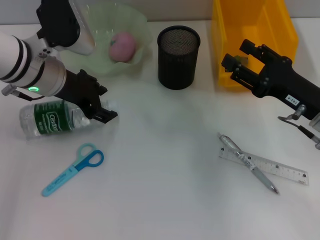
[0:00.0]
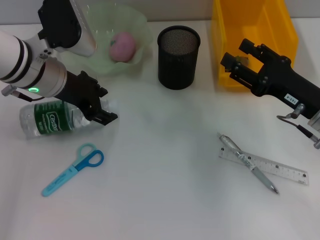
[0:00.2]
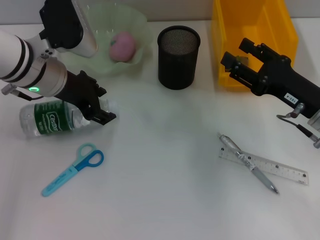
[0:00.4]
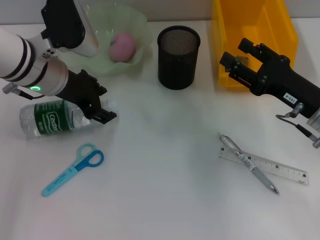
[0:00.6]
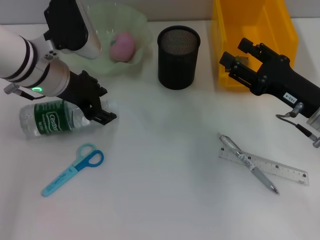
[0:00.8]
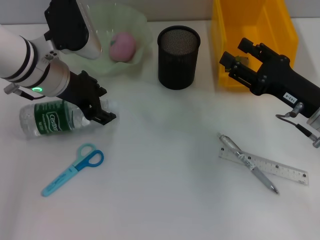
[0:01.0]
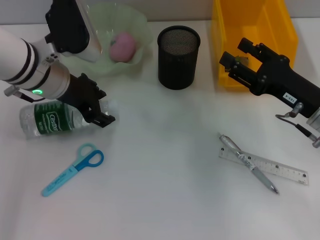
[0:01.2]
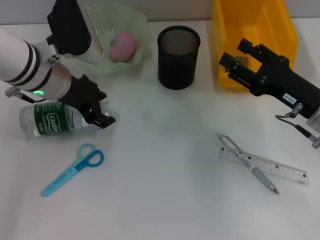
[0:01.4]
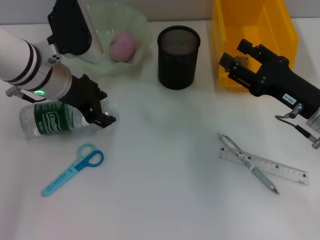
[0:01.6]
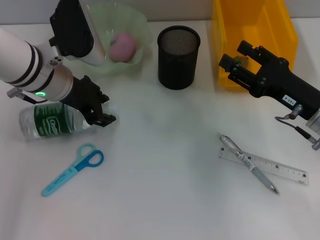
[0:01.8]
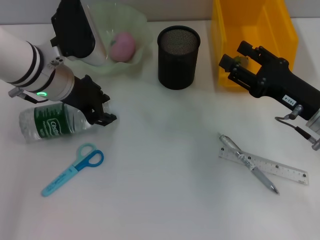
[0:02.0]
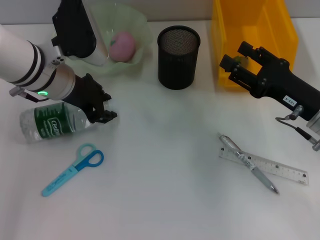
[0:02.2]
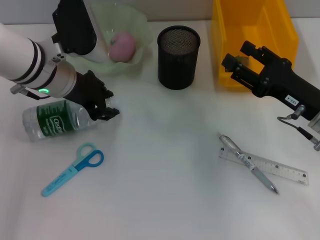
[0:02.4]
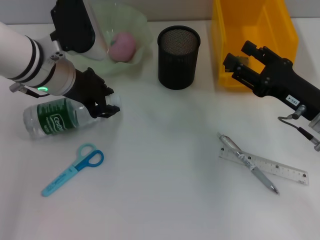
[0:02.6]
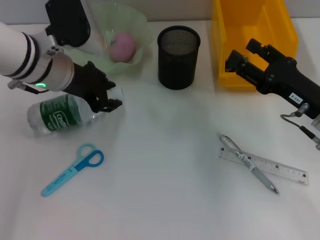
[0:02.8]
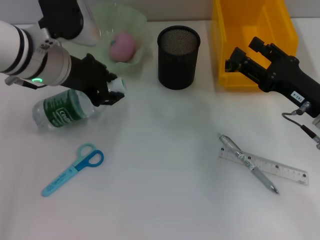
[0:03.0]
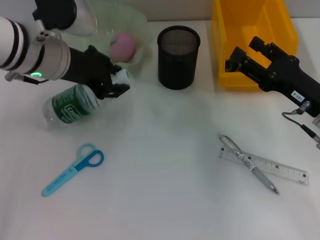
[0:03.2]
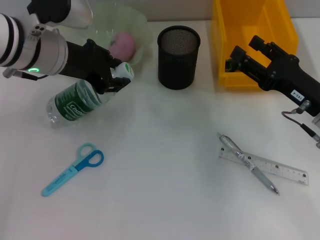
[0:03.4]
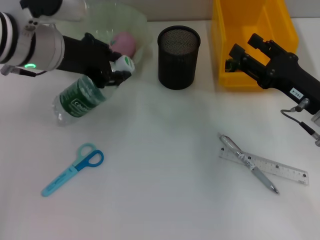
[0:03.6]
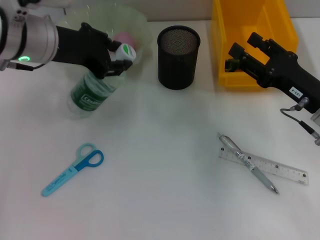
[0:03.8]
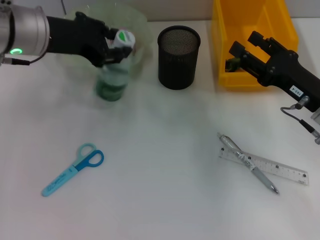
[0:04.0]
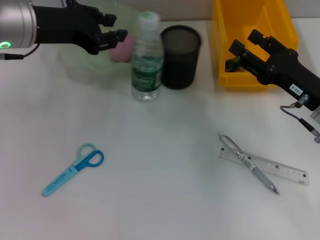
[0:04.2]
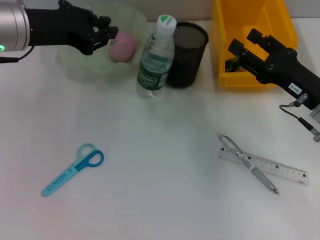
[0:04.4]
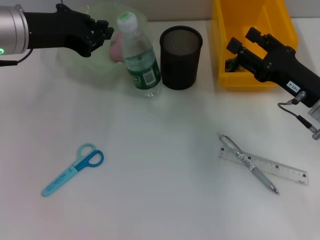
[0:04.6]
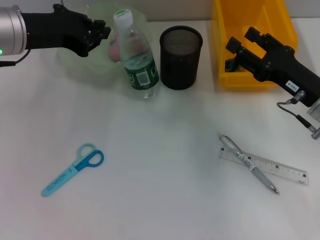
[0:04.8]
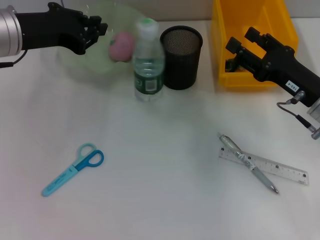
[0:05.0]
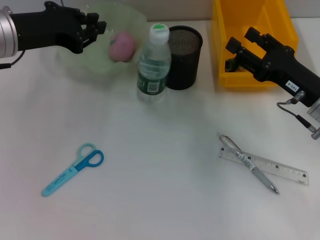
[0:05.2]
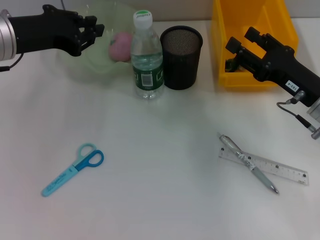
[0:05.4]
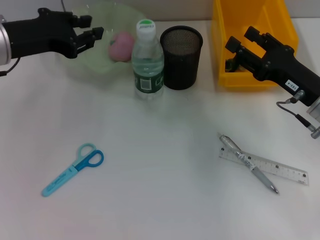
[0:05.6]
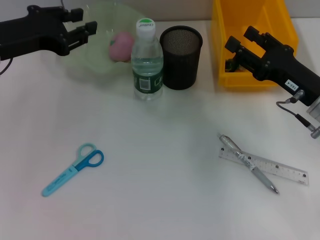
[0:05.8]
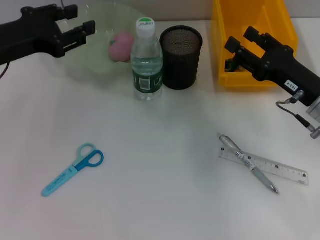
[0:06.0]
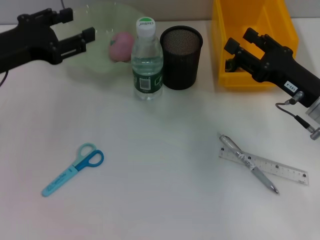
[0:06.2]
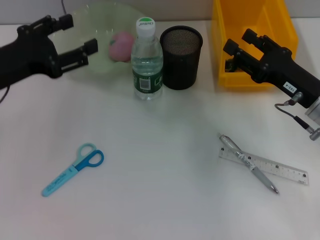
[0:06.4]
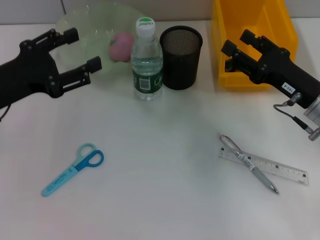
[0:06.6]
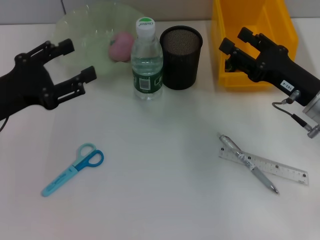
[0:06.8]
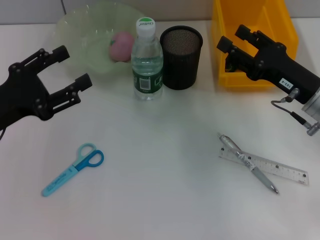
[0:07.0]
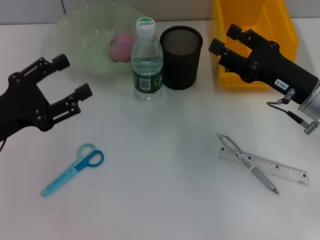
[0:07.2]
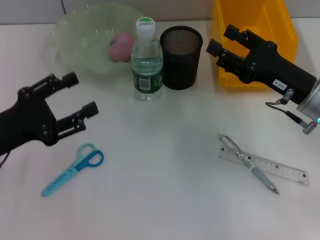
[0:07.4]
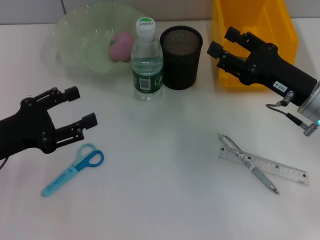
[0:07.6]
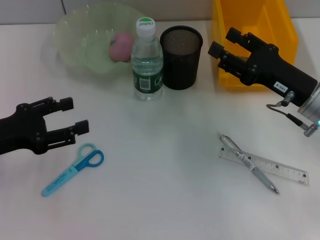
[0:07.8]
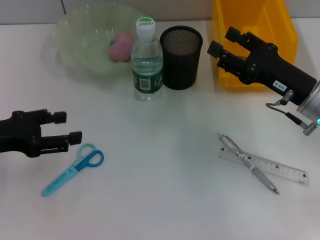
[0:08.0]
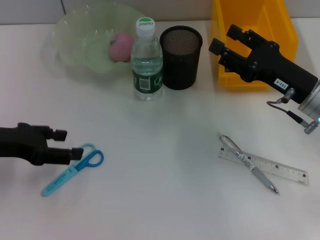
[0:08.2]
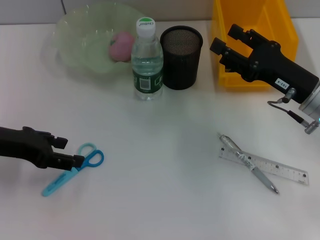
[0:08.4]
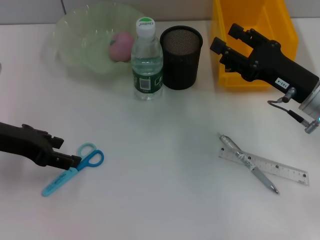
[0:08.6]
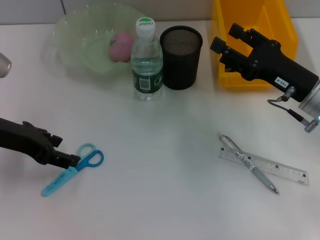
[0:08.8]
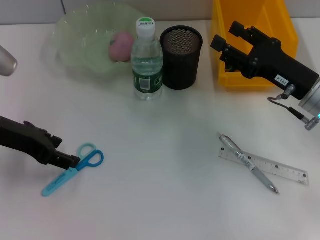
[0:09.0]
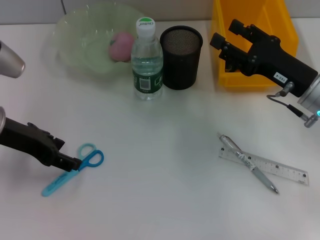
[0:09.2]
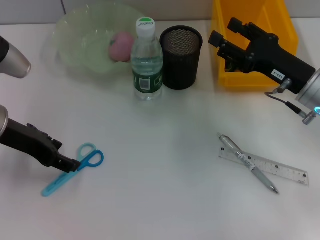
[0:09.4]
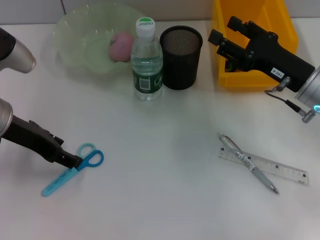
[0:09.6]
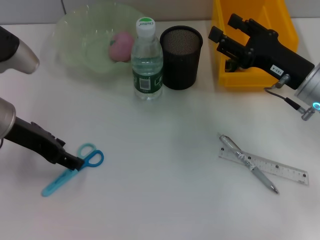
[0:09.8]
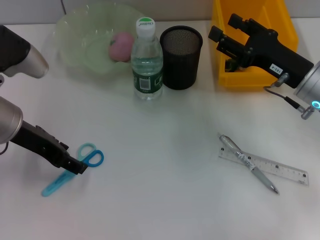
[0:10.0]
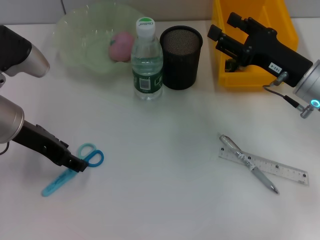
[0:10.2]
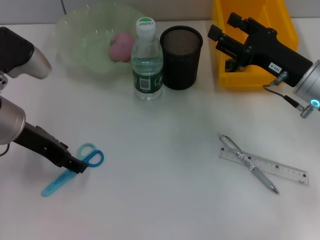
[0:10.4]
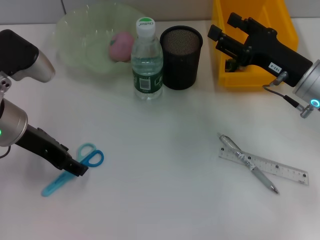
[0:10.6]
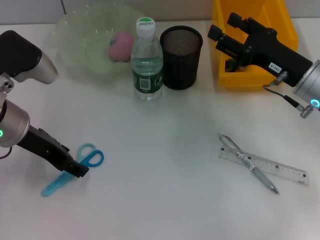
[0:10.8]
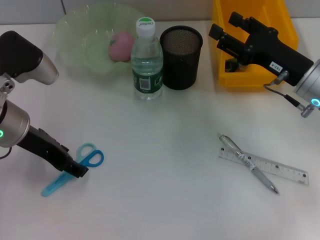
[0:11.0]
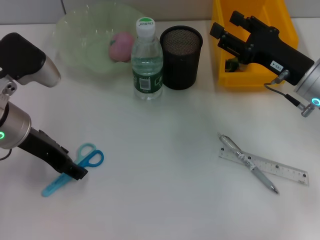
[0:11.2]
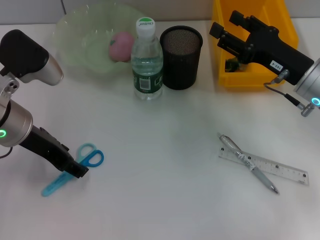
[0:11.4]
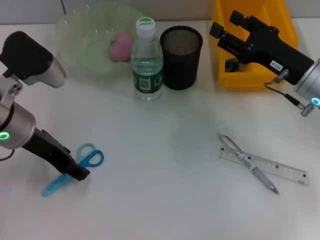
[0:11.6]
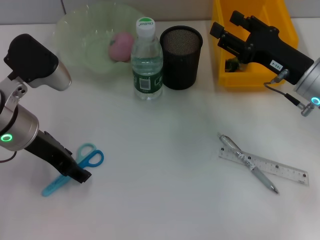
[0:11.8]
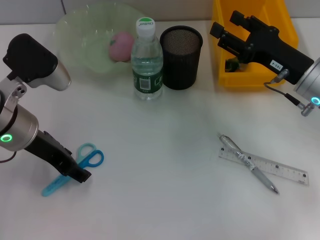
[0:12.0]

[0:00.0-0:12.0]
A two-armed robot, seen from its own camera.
Step, 0:00.0 to 0:02.4: Grab the water bottle with the left hand.
Step, 0:02.6 to 0:05.8: Place the water bottle on the table with the left hand.
0:00.0 to 0:01.6: The two grippers keep their place.
0:01.6 to 0:03.0: The left gripper closes.
0:03.0 to 0:04.4: The left gripper shifts by some 5 cm.
0:04.4 to 0:06.0: The left gripper shifts by roughly 5 cm.
0:06.0 to 0:07.6: The left gripper heads backward and downward, covering about 10 cm, and opens up.
0:07.6 to 0:09.0: The left gripper shifts approximately 10 cm forward and upward.
0:09.0 to 0:12.0: The grippers make only small movements.

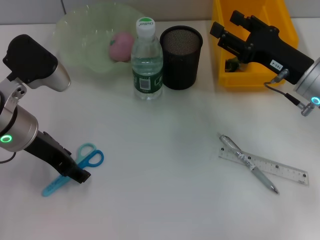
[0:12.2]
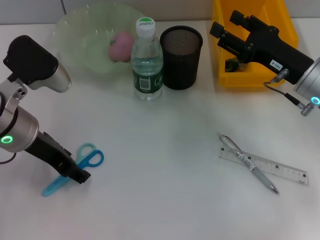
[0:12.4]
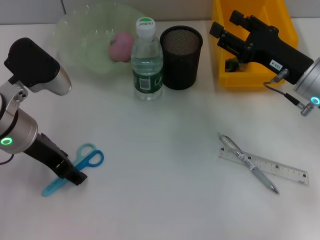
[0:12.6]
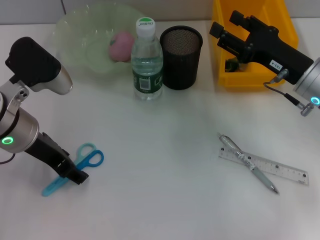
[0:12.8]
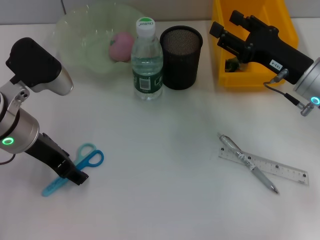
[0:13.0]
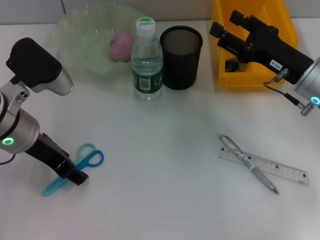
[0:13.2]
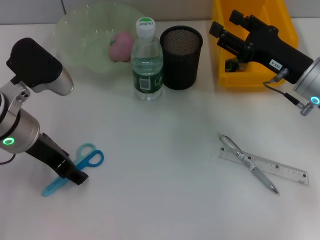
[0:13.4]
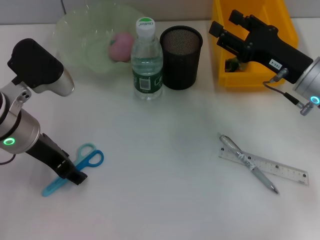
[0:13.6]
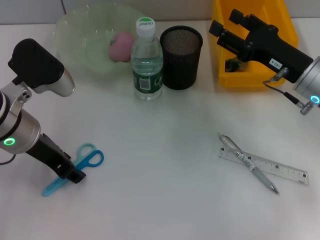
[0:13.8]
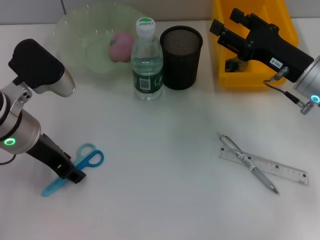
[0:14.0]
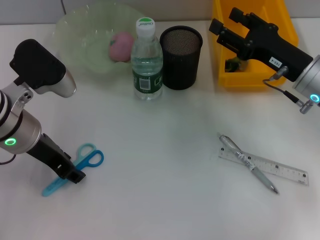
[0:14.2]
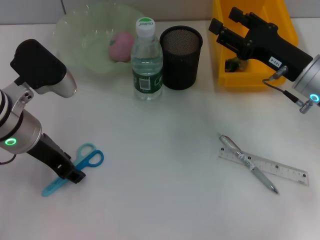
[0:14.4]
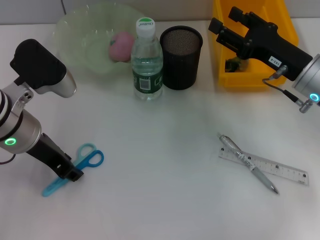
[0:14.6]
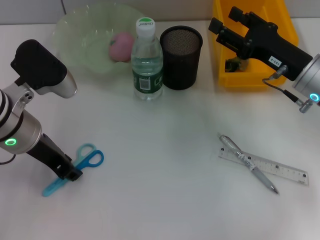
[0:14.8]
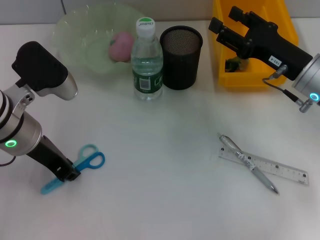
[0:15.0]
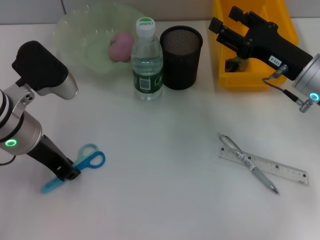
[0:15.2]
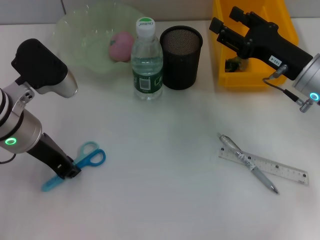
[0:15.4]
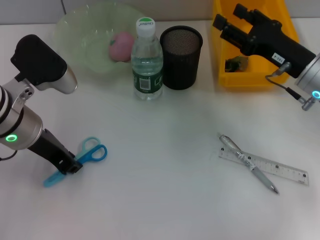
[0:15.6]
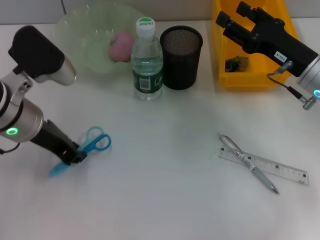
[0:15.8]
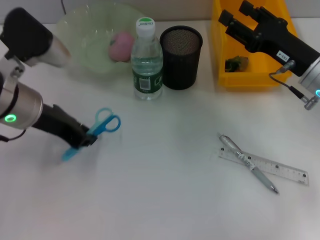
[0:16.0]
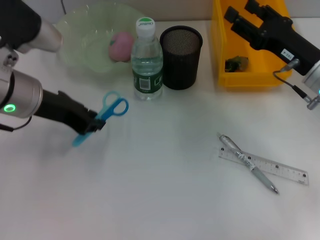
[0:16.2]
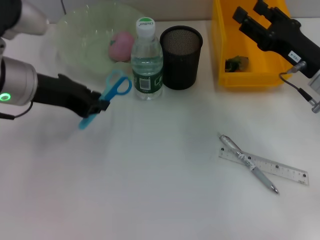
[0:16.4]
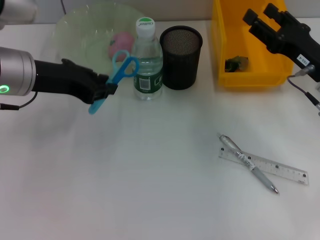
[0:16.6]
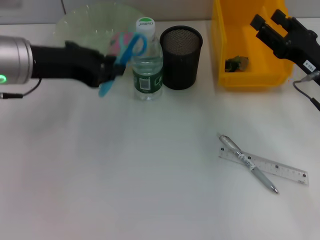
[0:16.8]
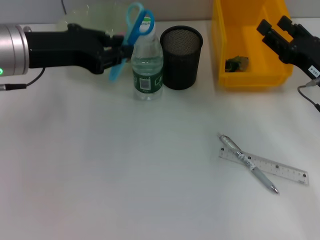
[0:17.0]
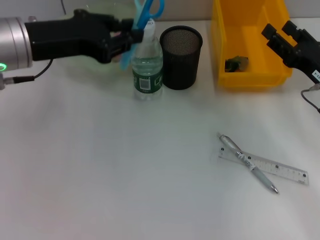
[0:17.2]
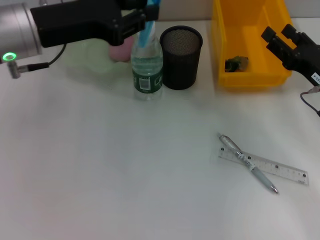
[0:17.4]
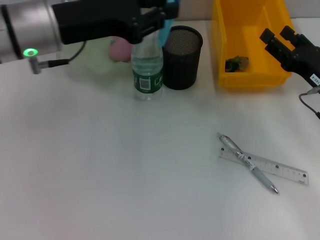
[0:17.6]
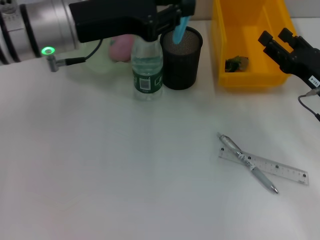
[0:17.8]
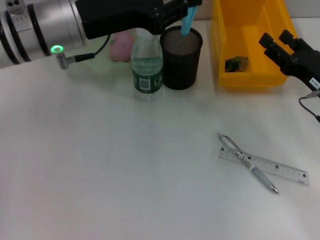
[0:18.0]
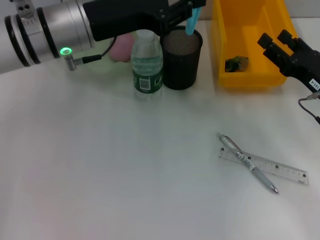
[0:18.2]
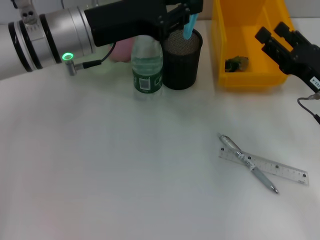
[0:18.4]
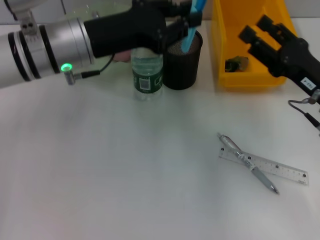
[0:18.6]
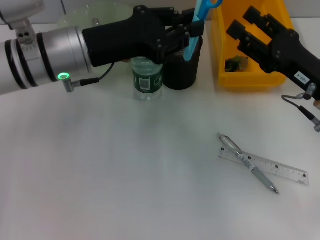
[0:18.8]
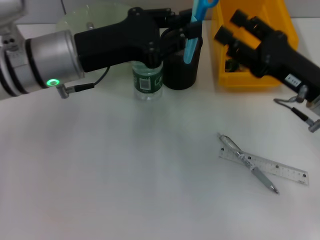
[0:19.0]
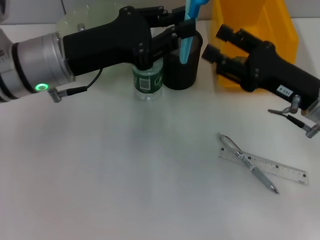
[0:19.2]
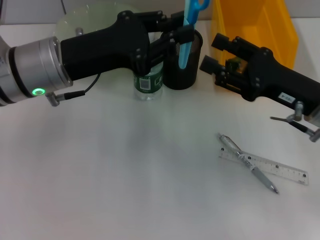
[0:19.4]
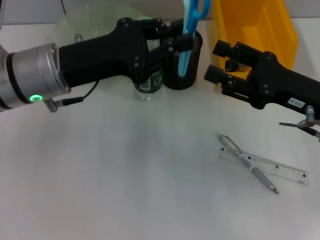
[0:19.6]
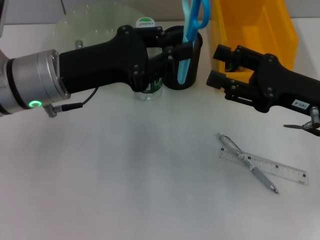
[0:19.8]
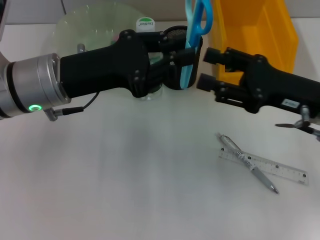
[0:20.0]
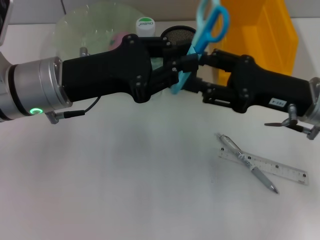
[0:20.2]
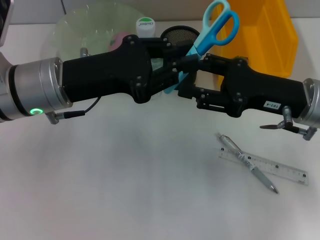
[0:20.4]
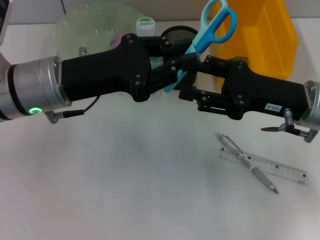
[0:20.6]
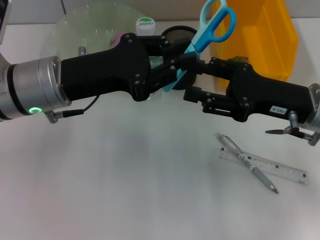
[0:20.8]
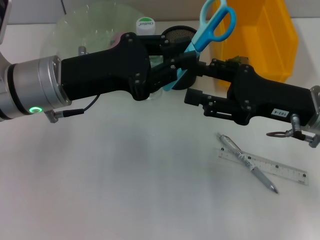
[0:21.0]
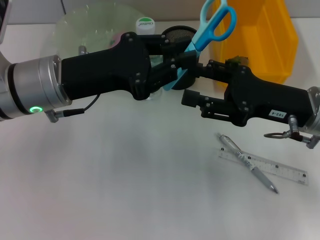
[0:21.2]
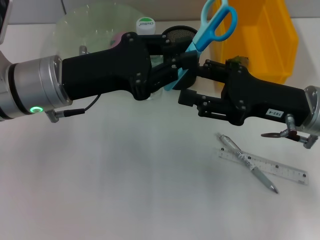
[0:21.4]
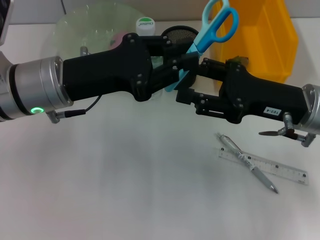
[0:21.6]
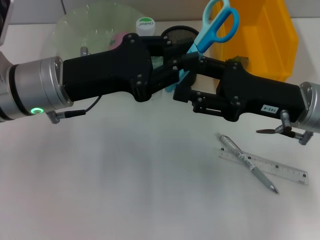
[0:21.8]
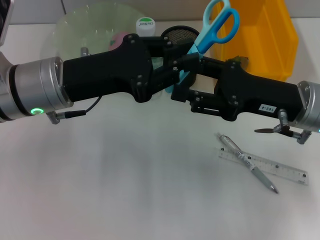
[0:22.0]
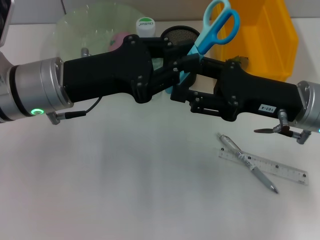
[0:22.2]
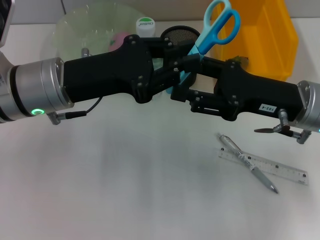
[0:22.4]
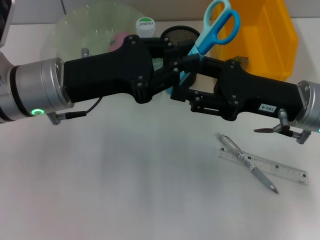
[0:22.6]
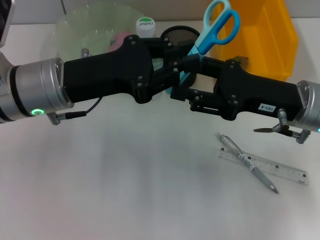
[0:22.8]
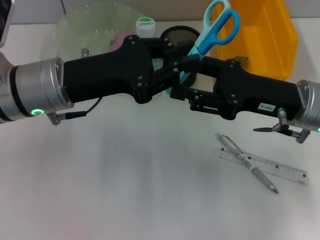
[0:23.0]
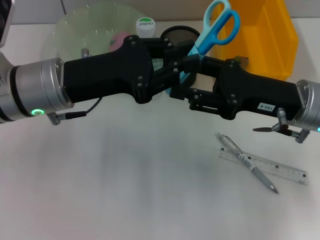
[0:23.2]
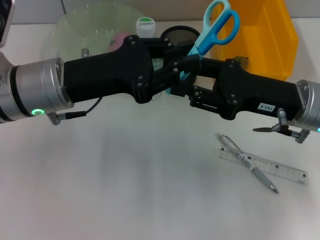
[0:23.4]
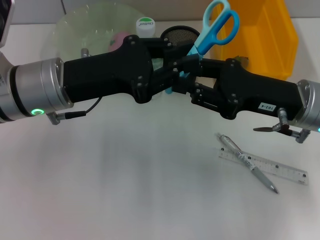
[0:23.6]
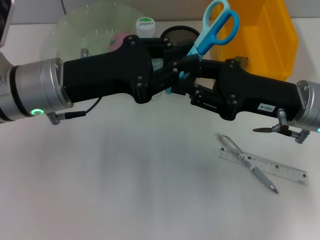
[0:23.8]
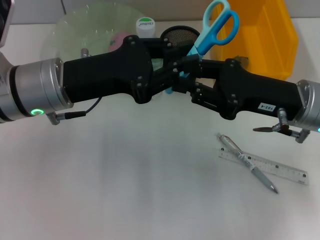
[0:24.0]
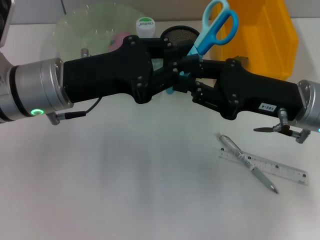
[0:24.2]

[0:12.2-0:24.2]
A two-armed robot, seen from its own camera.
Step, 0:12.2 to 0:15.4: Grab the blue scissors with the left hand.
0:12.2 to 0:13.8: The two grippers keep their place.
0:13.8 to 0:15.2: The left gripper closes.
0:15.2 to 0:16.6: The left gripper shifts by approximately 5 cm.
0:16.6 to 0:18.2: The left gripper heads to the right, covering approximately 5 cm.
0:18.2 to 0:19.8: The left gripper goes roughly 5 cm backward. The right gripper shifts some 5 cm upward.
0:19.8 to 0:22.6: There are only small adjustments of the grippers.
0:22.6 to 0:24.2: The right gripper closes its fingers.
